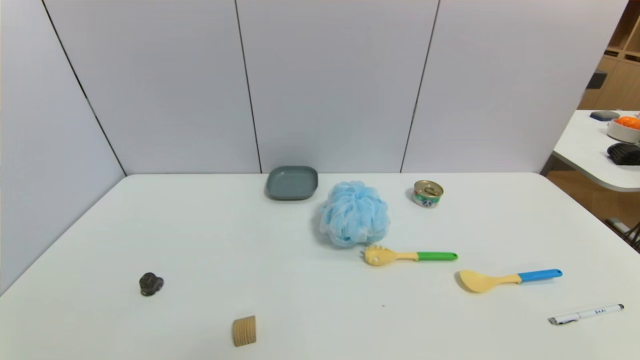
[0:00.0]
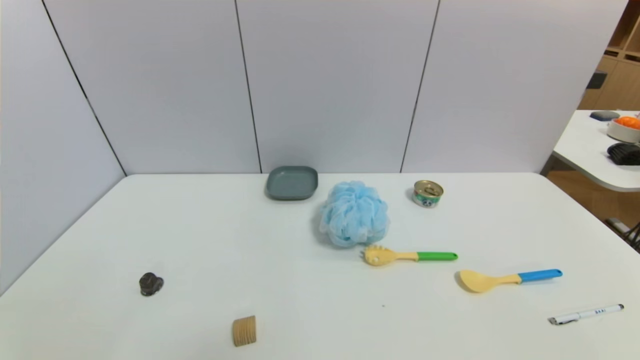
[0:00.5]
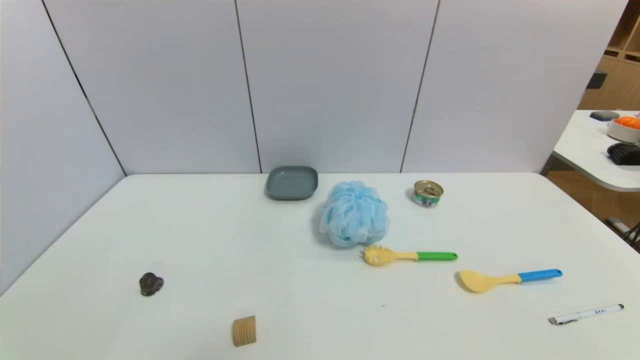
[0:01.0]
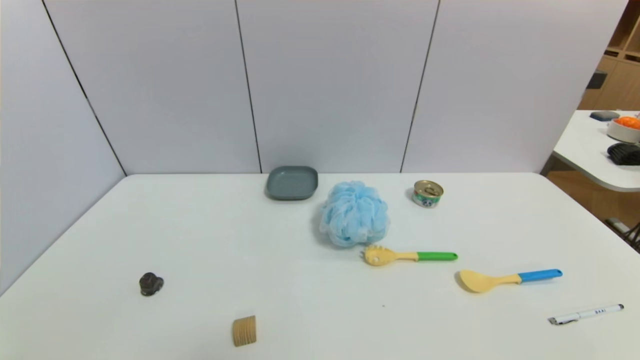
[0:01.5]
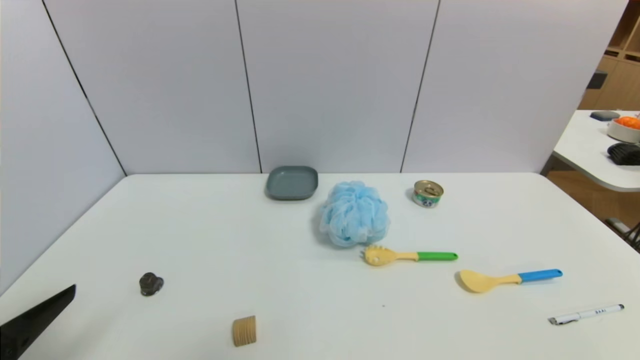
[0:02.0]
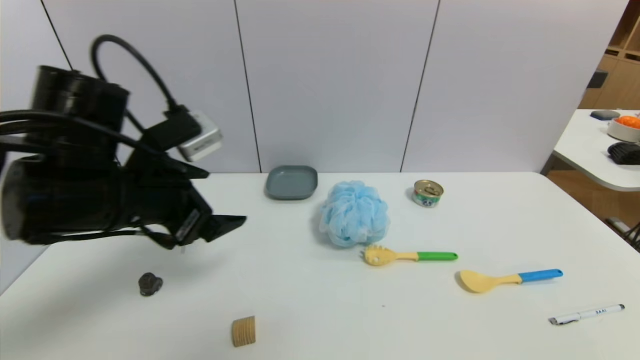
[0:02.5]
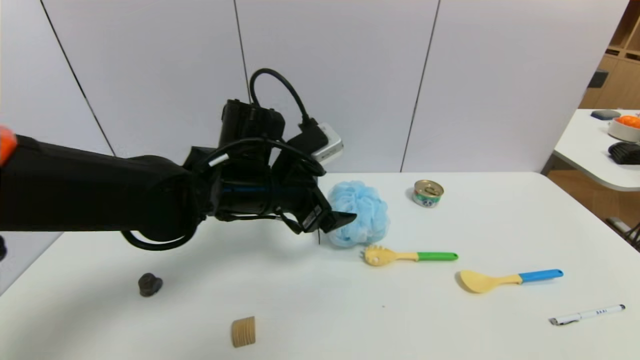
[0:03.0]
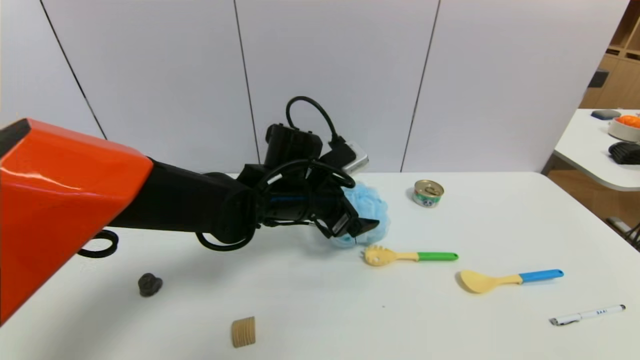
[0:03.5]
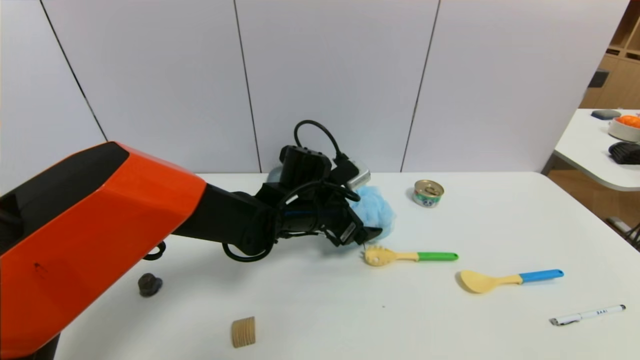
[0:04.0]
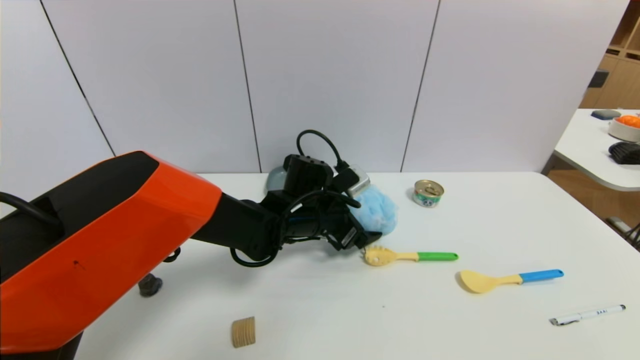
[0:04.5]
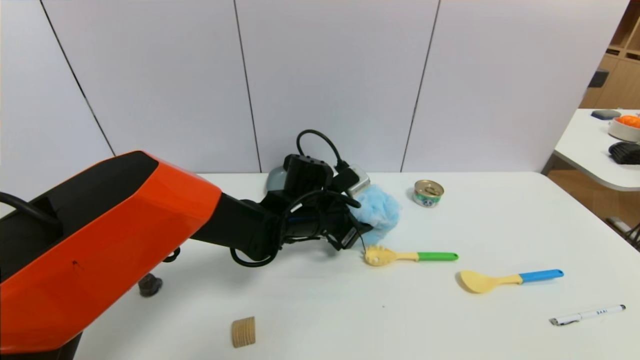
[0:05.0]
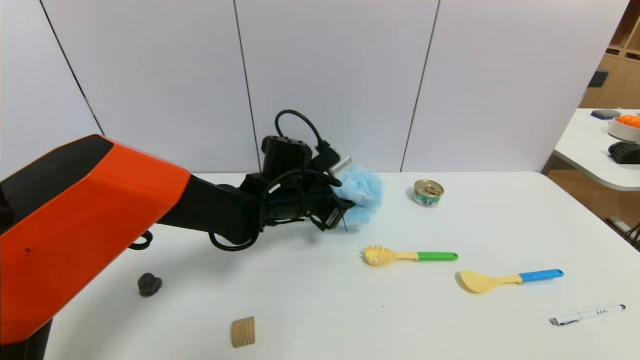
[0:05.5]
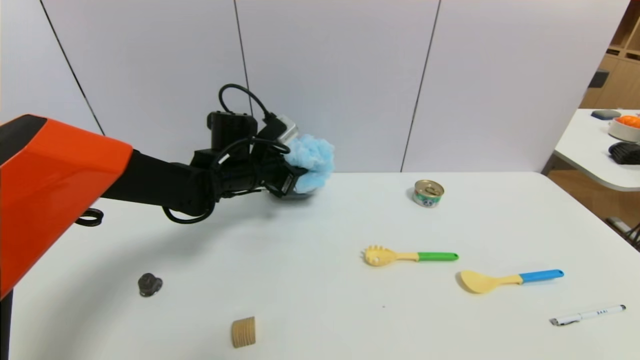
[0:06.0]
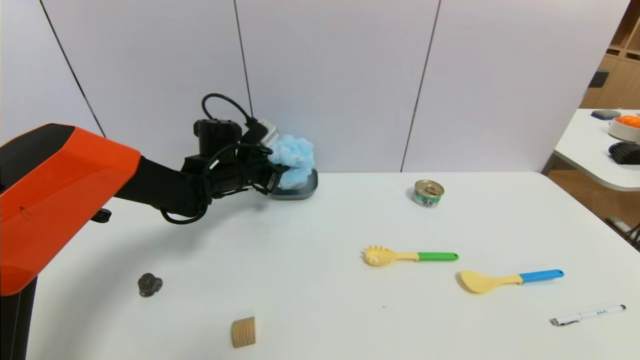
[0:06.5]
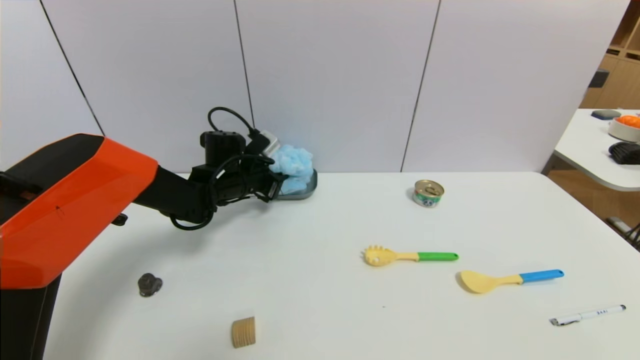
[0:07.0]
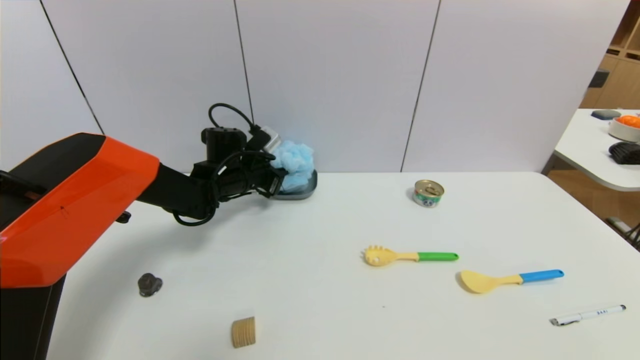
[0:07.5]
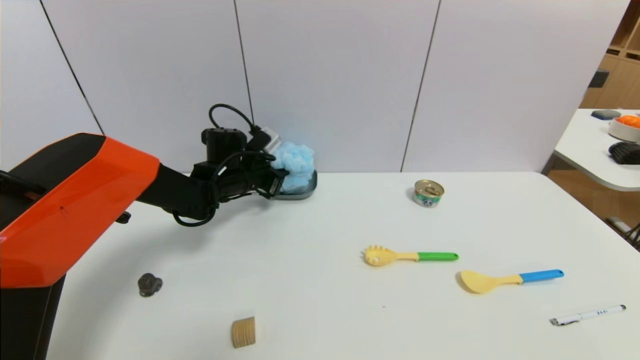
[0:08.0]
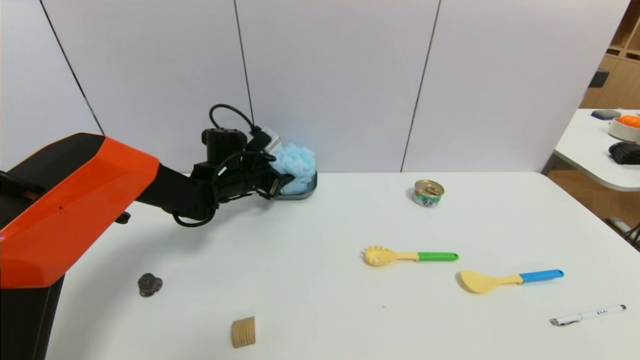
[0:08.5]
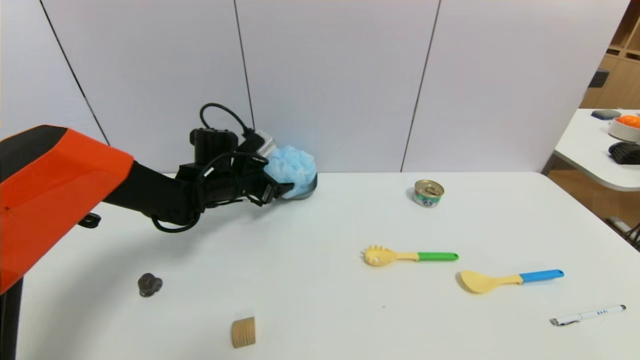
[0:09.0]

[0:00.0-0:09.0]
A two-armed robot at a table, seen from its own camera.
Task of the whole recording: use a gripper to pick the target object and place on the dish.
Step, 0:00.0 to 0:05.0: Grasp the shower sphere with the left gripper.
0:00.0 to 0:02.0: The left gripper moves upward and forward, approximately 15 cm.
0:02.0 to 0:04.5: The left gripper travels forward and to the right by about 40 cm.
0:04.5 to 0:07.0: The left gripper heads to the left and forward, covering roughly 15 cm, and closes its fingers.
0:07.0 to 0:09.0: The left gripper opens its fingers.

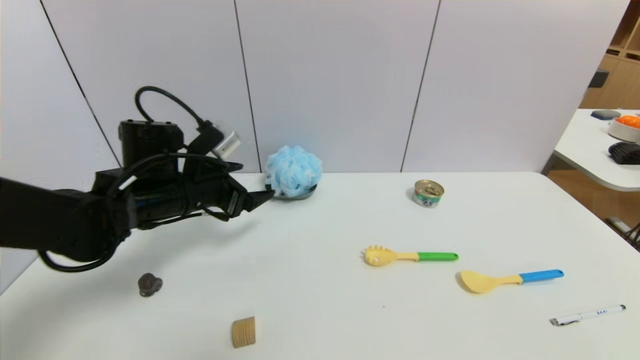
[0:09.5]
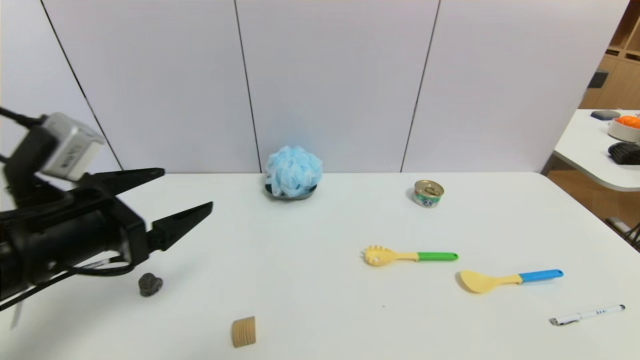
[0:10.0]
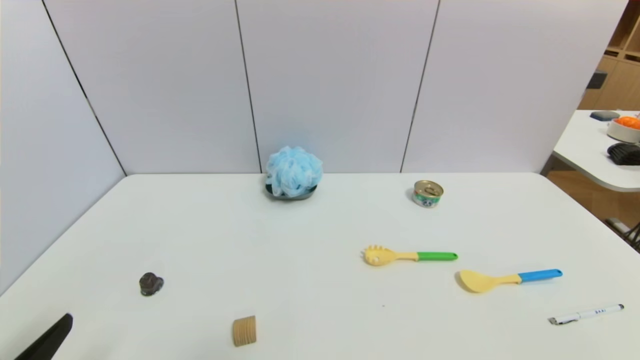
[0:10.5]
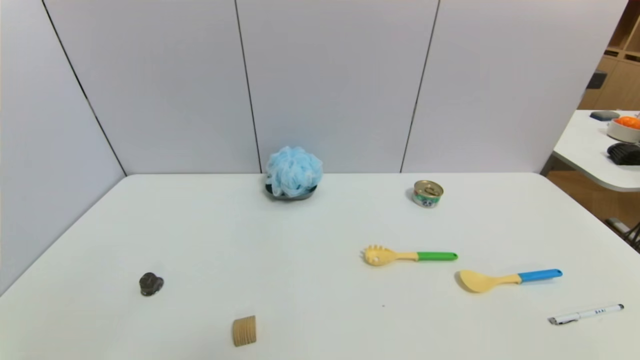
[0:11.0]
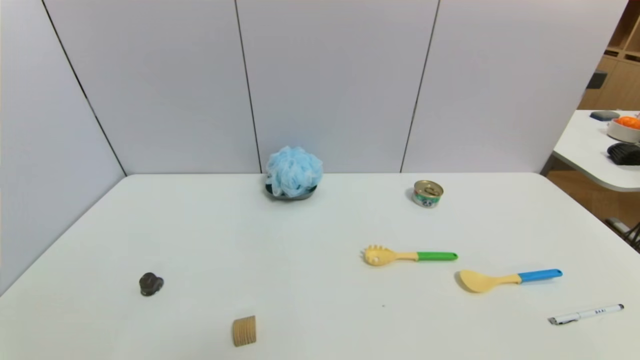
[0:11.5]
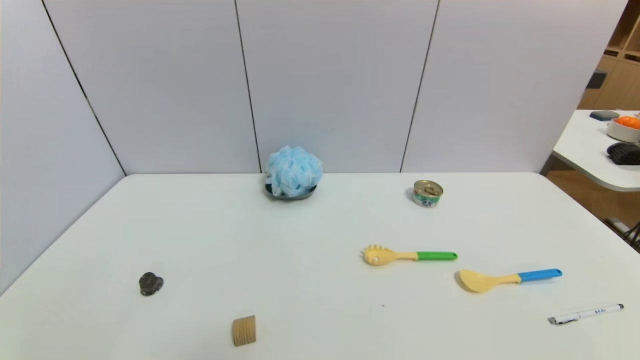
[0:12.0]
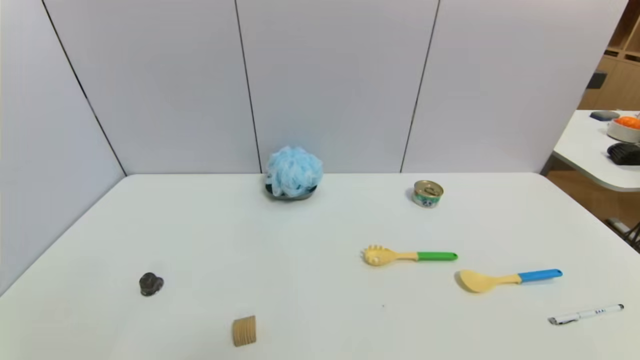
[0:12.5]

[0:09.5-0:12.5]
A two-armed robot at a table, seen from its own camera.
Task of the whole recording: use a gripper to pick the target object and place on the dish.
0:09.5 to 0:11.0: The left gripper shifts some 35 cm backward.

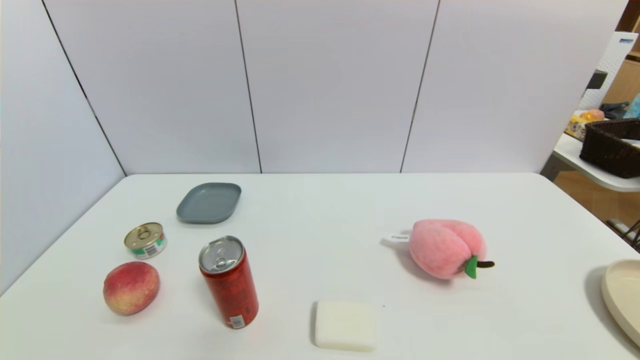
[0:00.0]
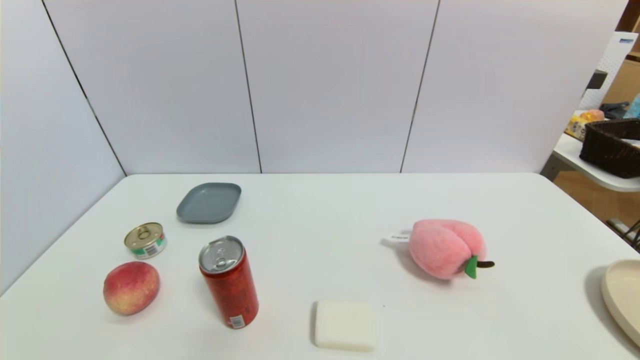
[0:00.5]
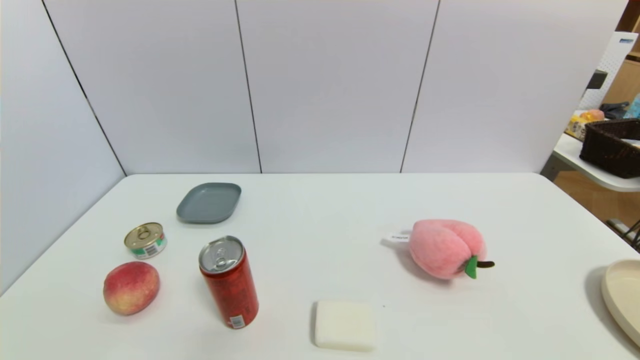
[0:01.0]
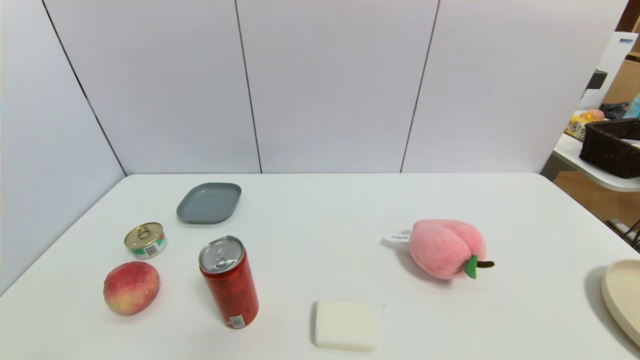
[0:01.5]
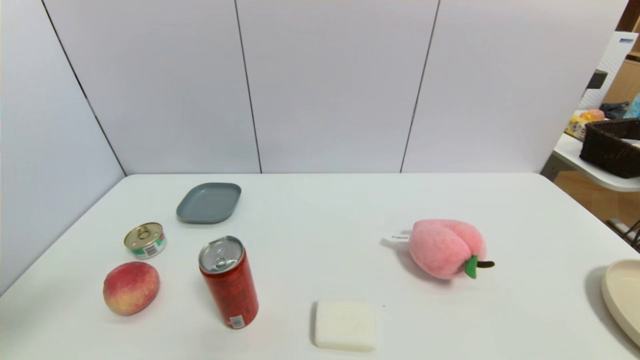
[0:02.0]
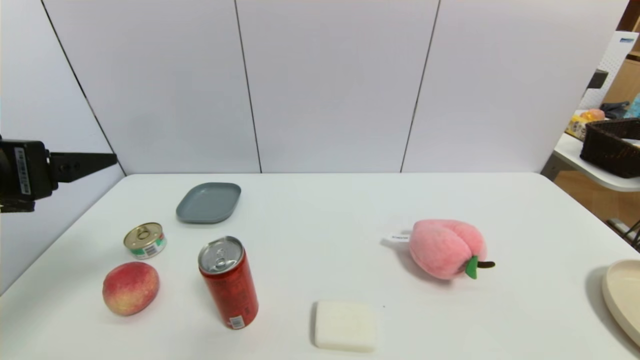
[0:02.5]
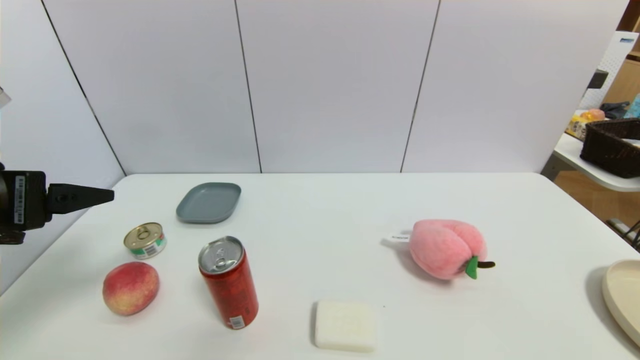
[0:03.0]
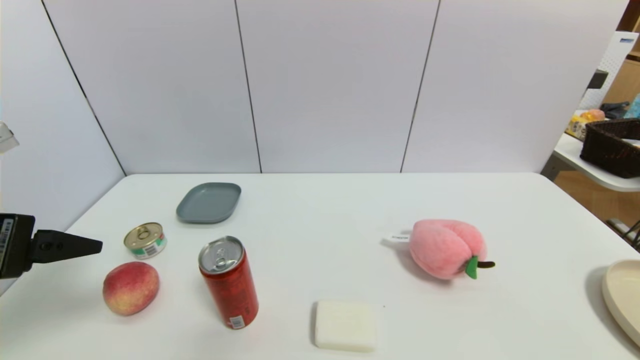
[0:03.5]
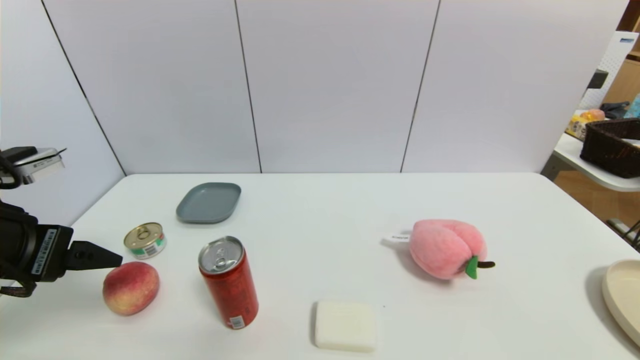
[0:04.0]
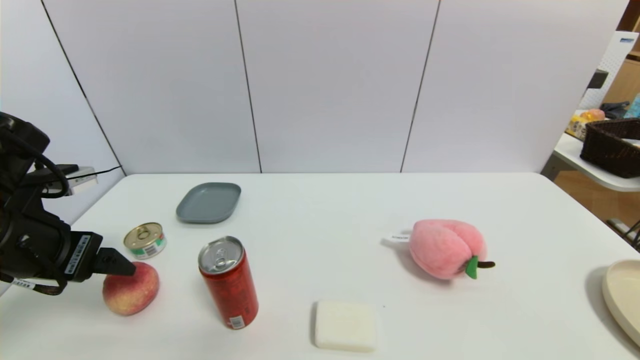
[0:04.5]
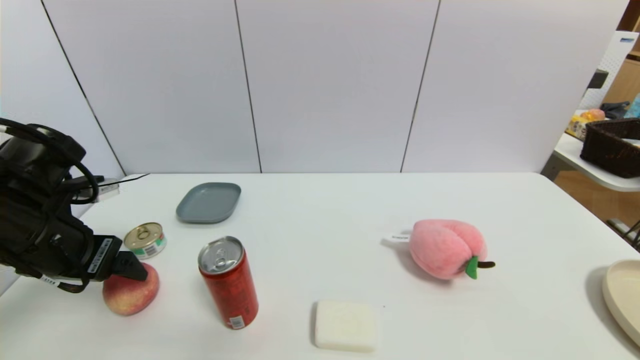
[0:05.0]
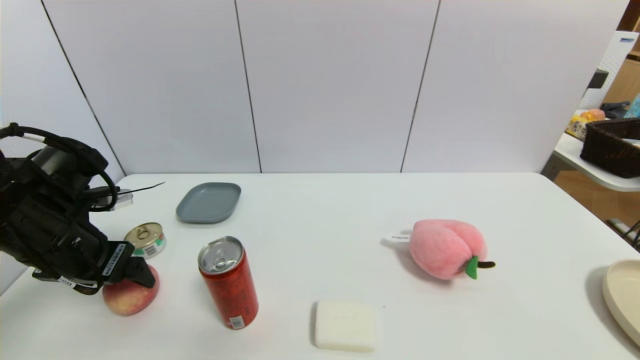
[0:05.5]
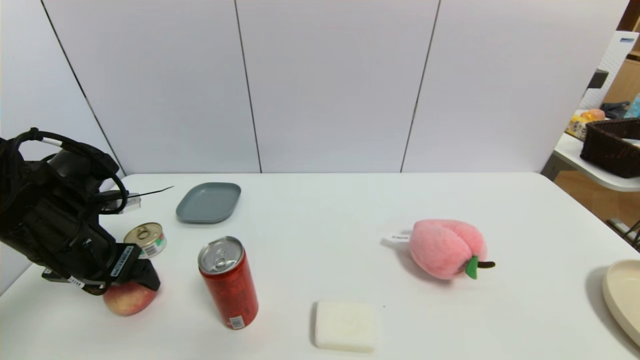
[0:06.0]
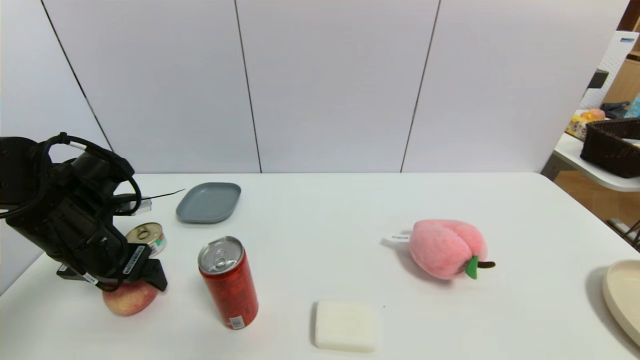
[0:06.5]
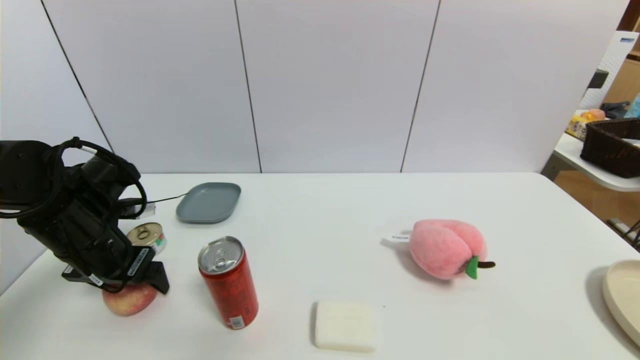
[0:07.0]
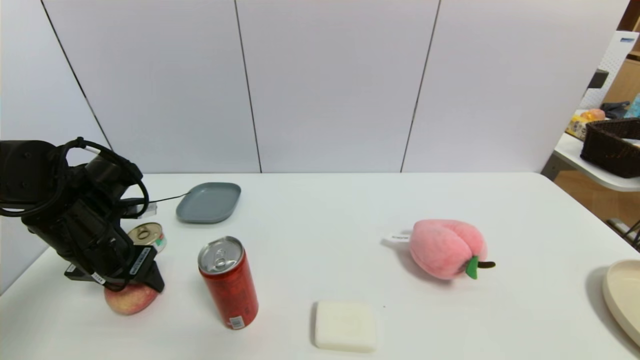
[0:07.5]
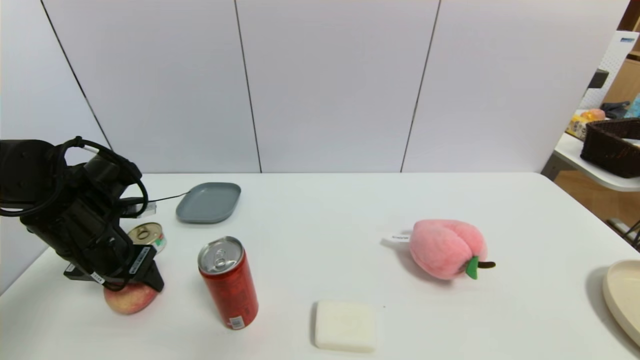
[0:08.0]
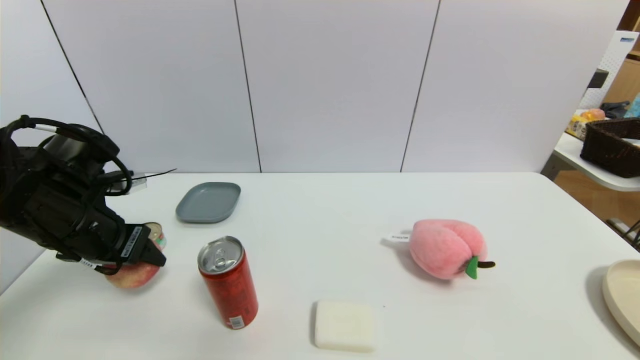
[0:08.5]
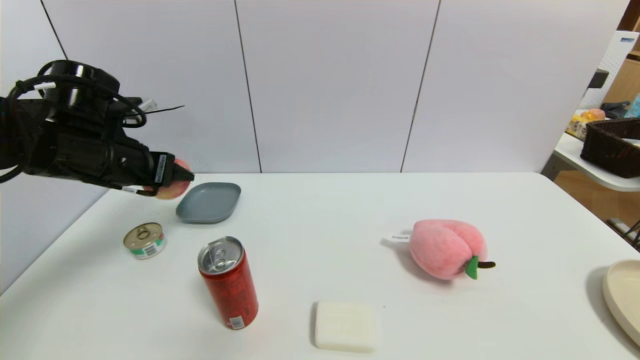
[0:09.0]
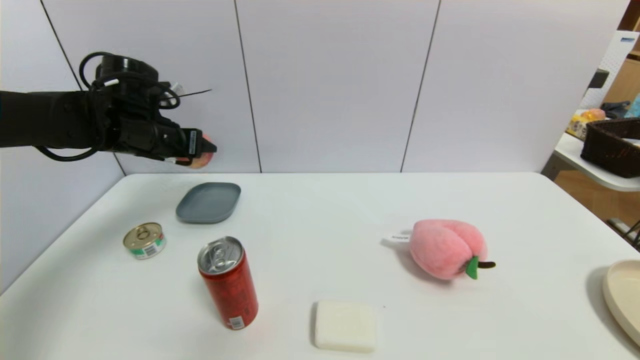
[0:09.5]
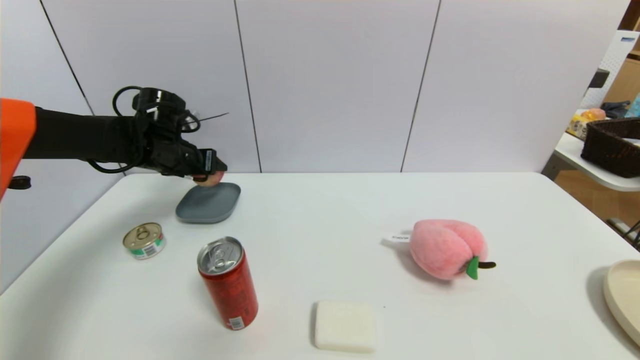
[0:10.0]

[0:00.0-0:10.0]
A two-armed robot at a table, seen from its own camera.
Task of the whole recording: use a gripper to pick the target object and place on the dish.
Step, 0:00.0 to 0:07.5: Grasp the peach with the left gripper.
0:00.0 to 0:02.0: The left gripper is displaced upward by approximately 25 cm.
0:02.0 to 0:04.0: The left gripper travels forward and downward by roughly 10 cm.
0:04.0 to 0:06.0: The left gripper goes some 10 cm forward and downward.
0:06.0 to 0:08.0: The left gripper closes.
0:08.0 to 0:10.0: The left gripper goes some 15 cm forward.
